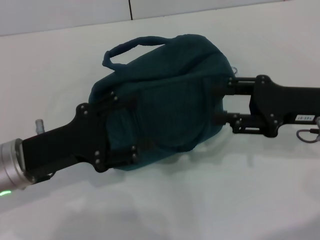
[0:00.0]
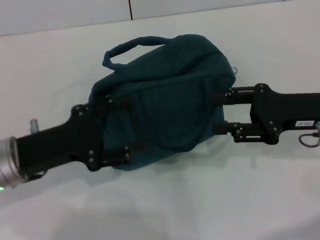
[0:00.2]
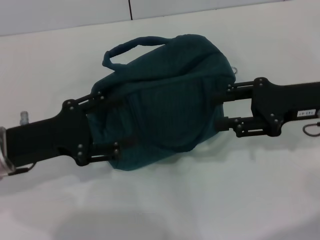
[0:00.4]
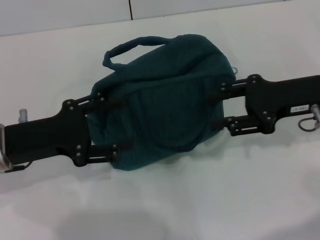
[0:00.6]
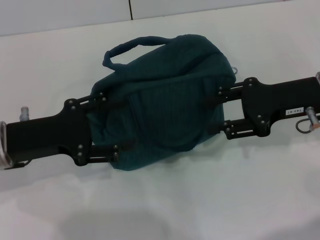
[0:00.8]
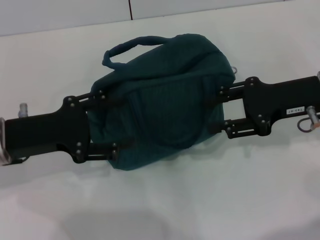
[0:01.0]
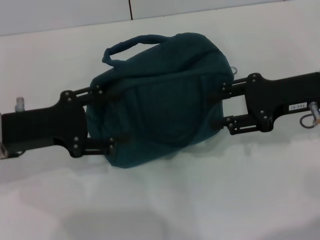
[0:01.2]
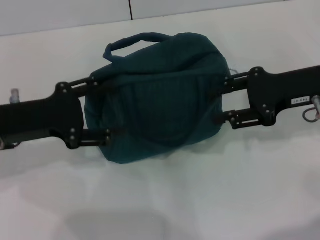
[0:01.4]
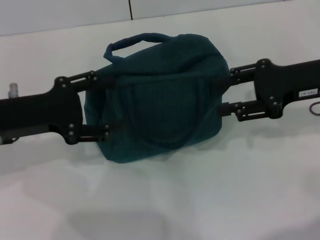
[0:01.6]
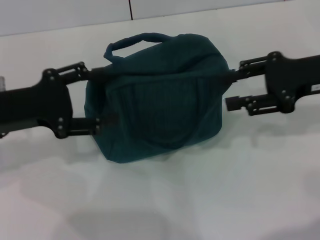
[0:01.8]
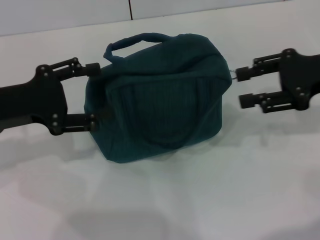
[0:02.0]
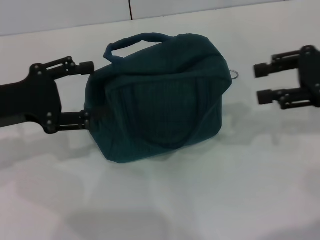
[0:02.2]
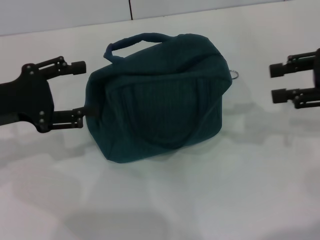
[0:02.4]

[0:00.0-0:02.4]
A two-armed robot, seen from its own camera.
0:00.0 to 0:01.2: The left gripper shifts by some 5 cm.
0:01.2 to 0:02.4: The right gripper moves to the right, approximately 10 cm.
